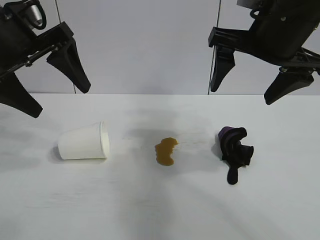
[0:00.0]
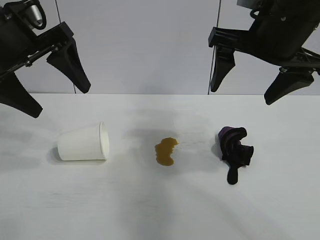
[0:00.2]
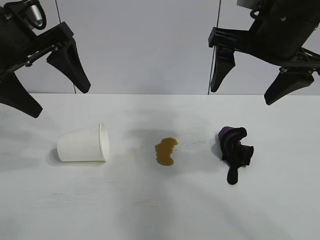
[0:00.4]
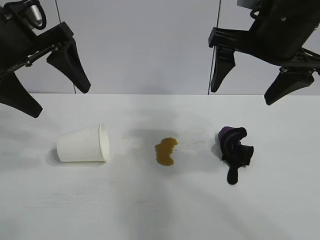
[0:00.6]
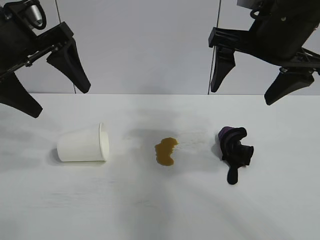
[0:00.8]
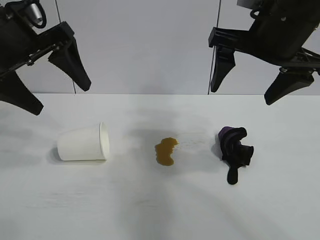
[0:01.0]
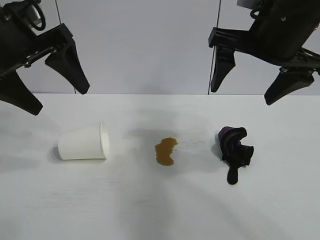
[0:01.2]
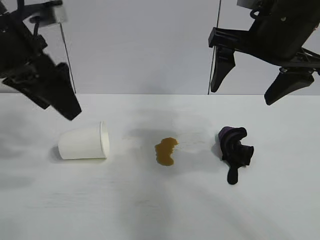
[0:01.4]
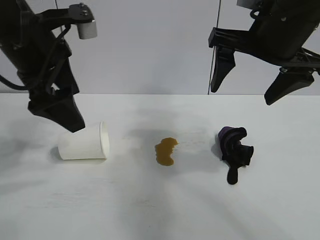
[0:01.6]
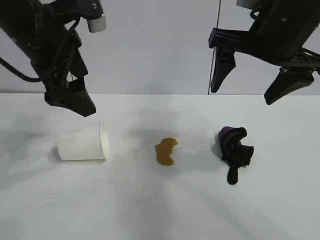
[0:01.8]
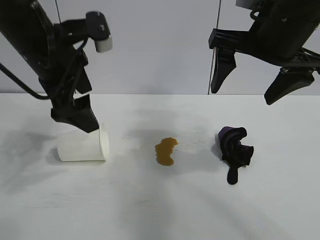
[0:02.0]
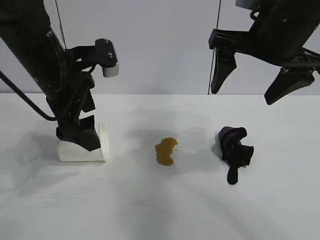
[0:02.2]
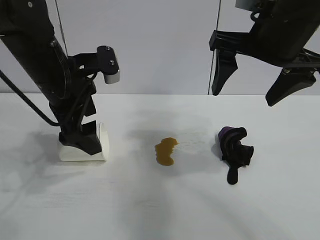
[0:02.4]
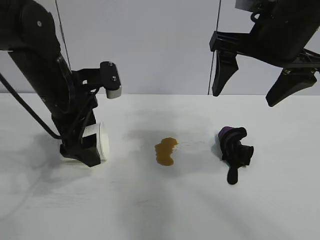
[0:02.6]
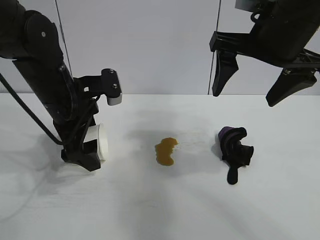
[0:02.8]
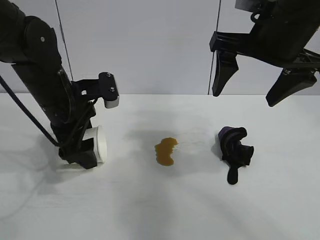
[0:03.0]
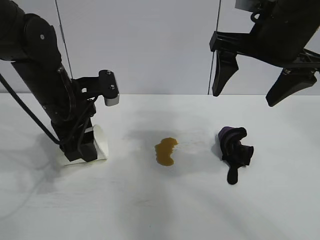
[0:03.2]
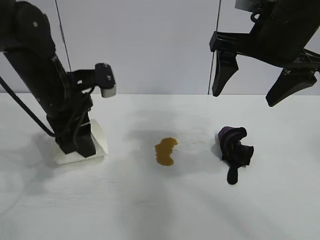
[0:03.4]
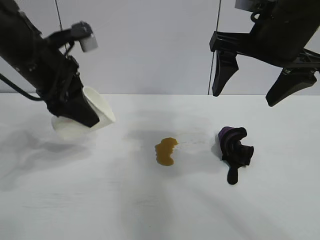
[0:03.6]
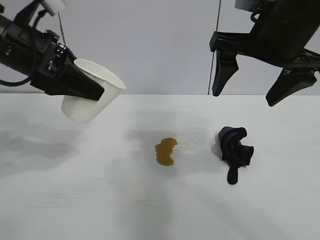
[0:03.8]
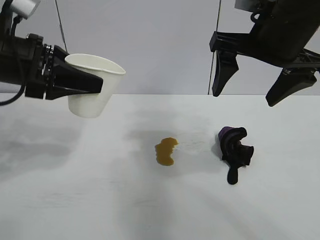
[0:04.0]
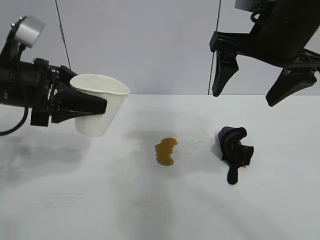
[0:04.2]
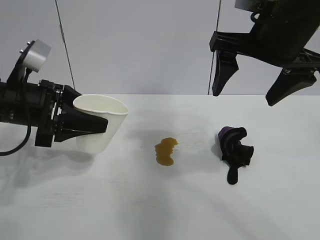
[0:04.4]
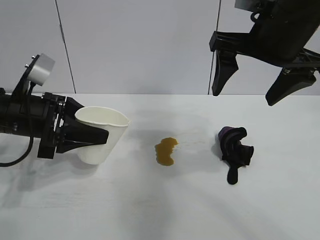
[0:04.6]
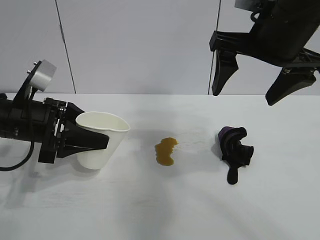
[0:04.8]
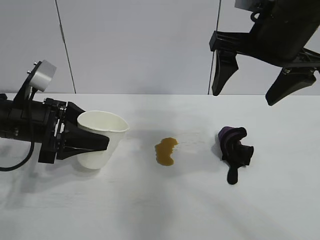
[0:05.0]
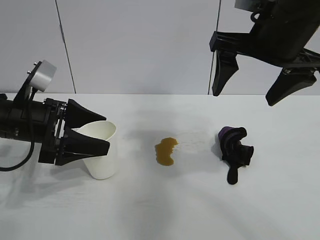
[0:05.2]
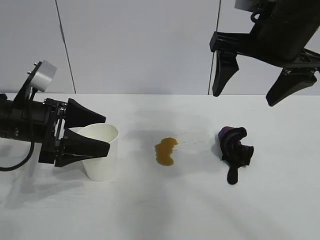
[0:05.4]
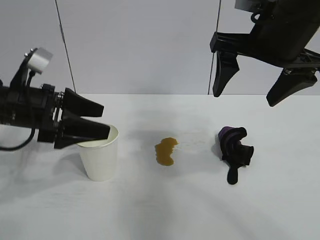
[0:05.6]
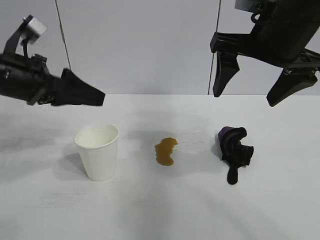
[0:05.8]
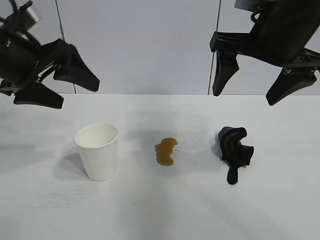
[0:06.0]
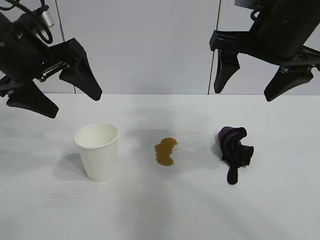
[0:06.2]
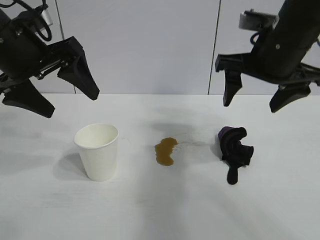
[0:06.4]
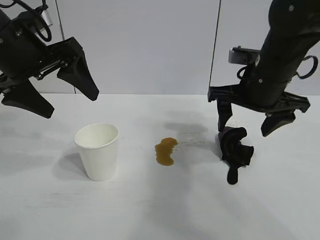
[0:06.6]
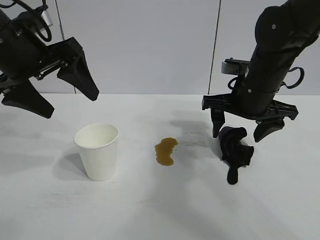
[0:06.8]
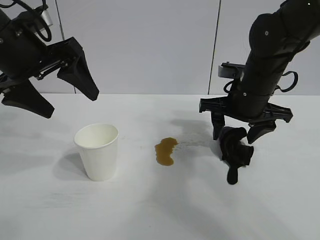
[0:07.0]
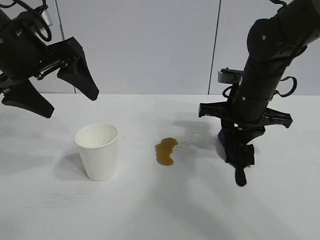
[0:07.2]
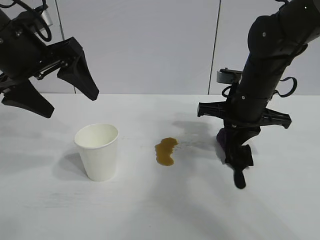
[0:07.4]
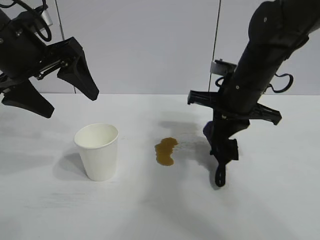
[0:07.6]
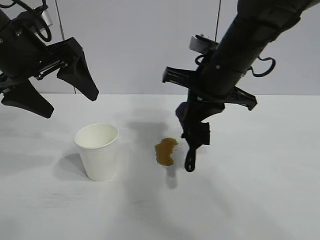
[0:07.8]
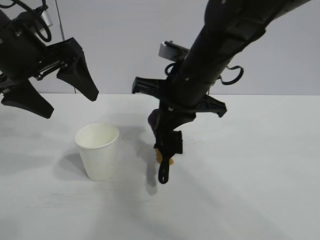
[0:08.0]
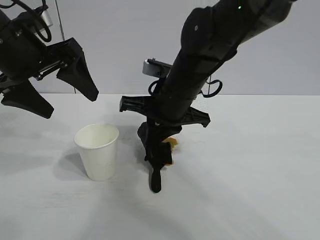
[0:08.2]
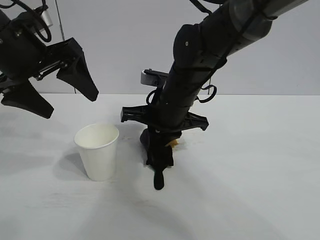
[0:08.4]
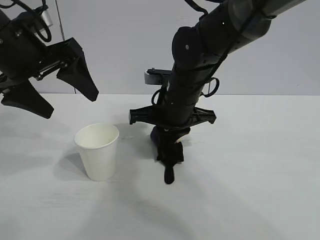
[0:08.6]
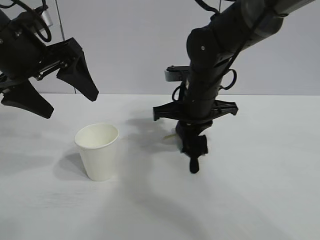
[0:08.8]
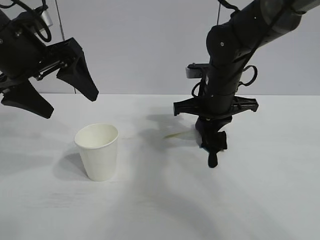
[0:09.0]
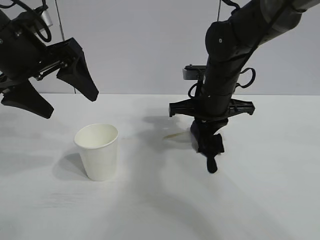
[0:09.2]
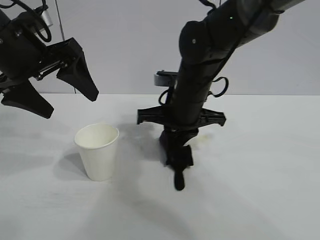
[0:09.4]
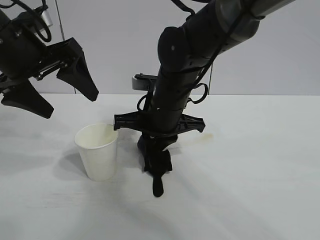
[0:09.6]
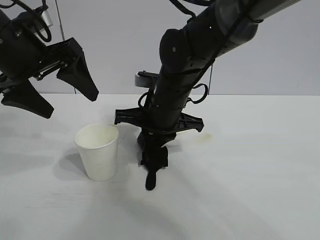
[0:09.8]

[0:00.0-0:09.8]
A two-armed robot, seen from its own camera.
Task of the whole recording: the left gripper pick up the fallen cup and place it upright, the right gripper grasp the black rag and wipe the stain on the table, the right gripper put the black rag back in its original position.
Step, 0:01.0 to 0:03.2: Grasp the paper cup with left gripper.
Step, 0:03.4 to 0:05.2: Stand the paper cup upright with left gripper.
Step, 0:05.4 to 0:07.2: Grasp the rag with right gripper.
